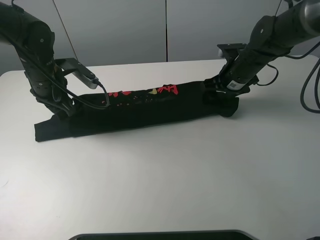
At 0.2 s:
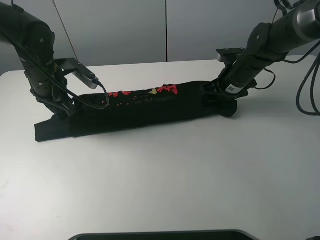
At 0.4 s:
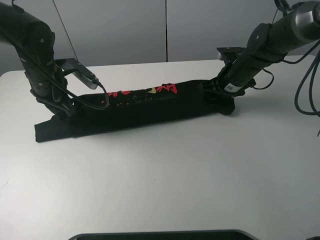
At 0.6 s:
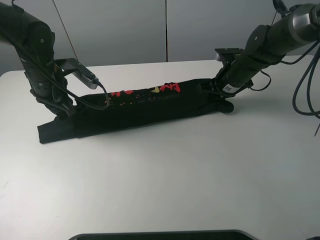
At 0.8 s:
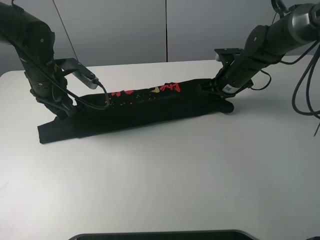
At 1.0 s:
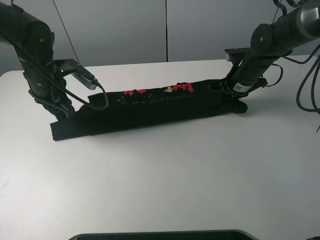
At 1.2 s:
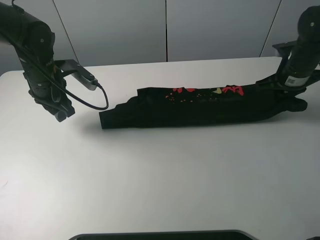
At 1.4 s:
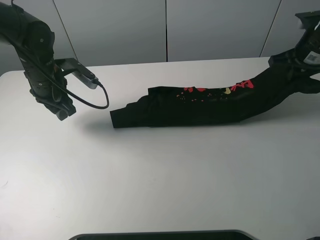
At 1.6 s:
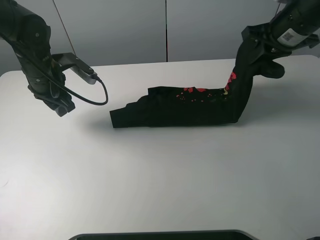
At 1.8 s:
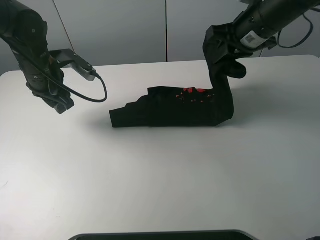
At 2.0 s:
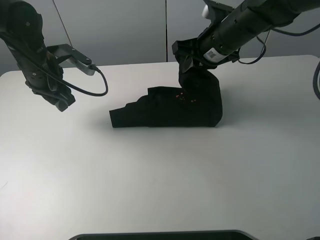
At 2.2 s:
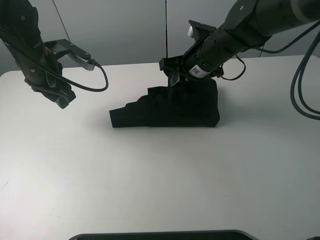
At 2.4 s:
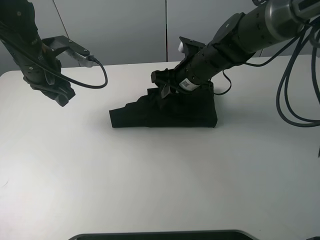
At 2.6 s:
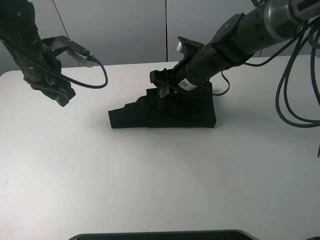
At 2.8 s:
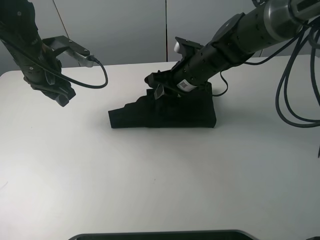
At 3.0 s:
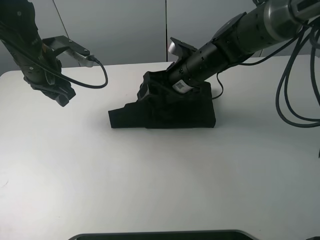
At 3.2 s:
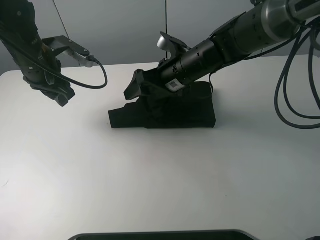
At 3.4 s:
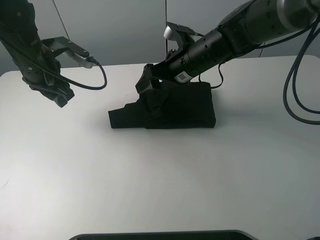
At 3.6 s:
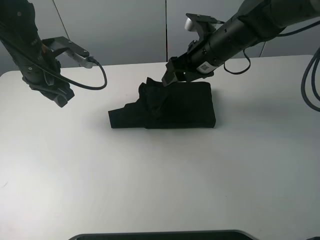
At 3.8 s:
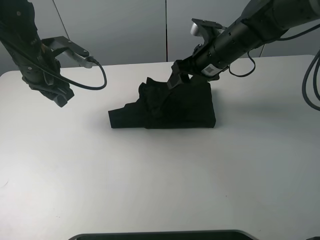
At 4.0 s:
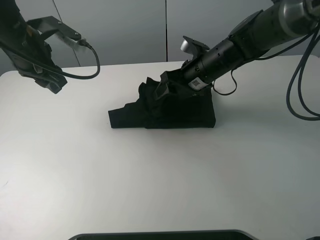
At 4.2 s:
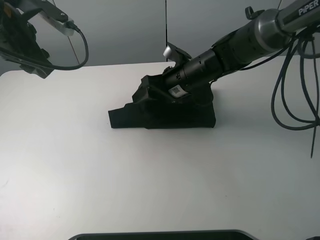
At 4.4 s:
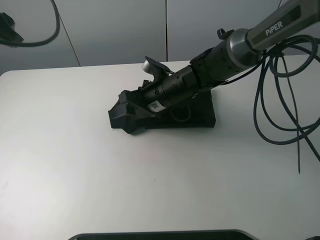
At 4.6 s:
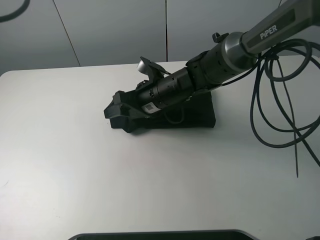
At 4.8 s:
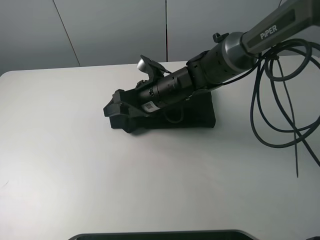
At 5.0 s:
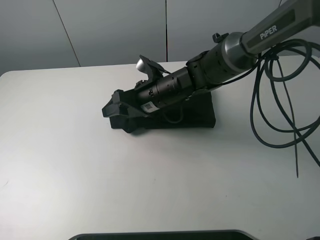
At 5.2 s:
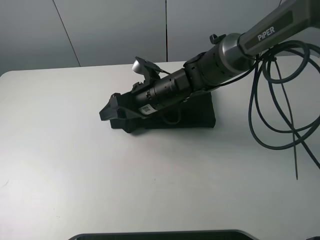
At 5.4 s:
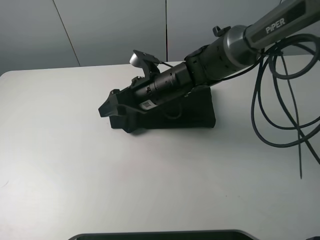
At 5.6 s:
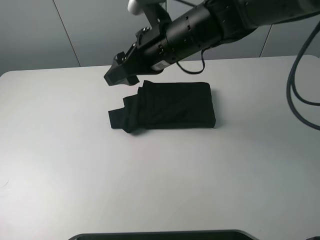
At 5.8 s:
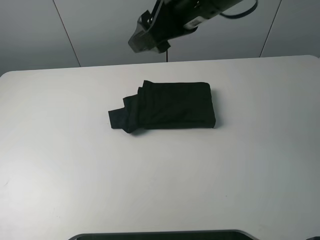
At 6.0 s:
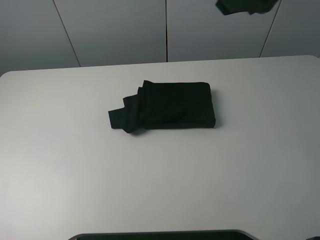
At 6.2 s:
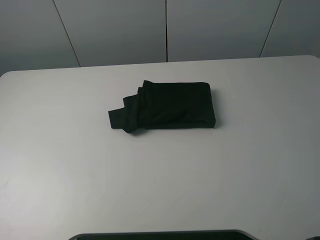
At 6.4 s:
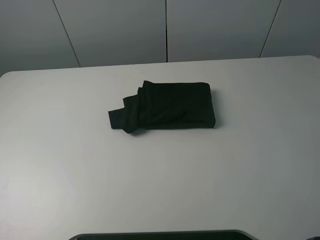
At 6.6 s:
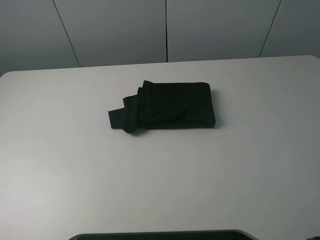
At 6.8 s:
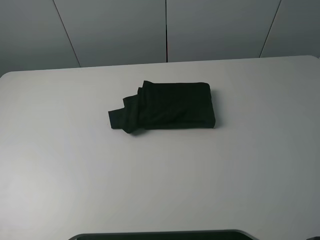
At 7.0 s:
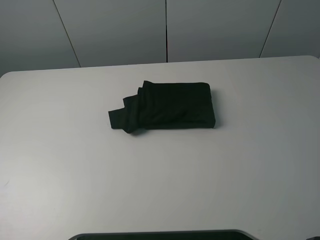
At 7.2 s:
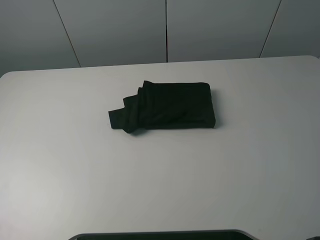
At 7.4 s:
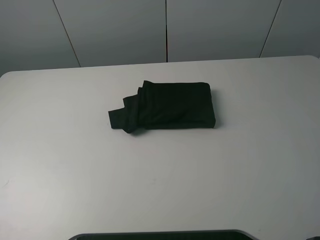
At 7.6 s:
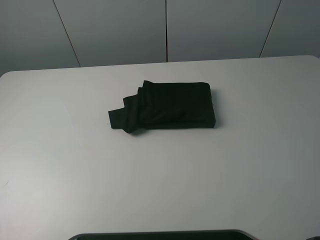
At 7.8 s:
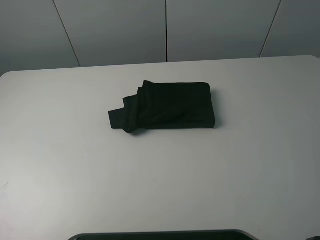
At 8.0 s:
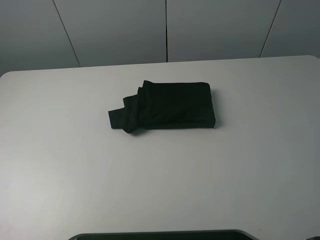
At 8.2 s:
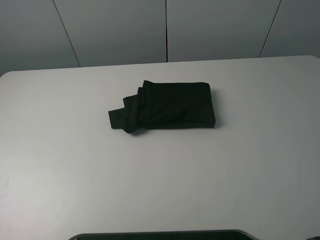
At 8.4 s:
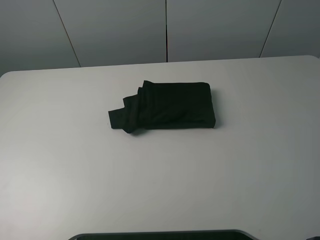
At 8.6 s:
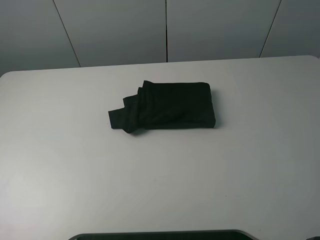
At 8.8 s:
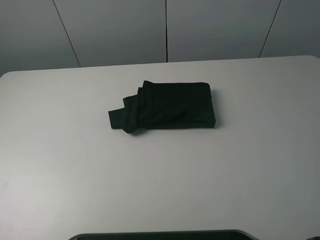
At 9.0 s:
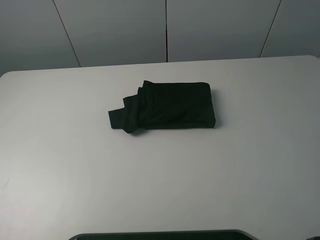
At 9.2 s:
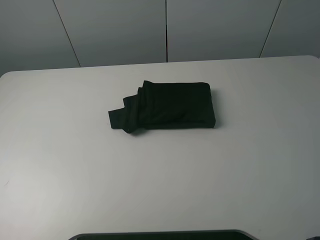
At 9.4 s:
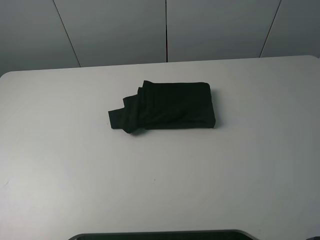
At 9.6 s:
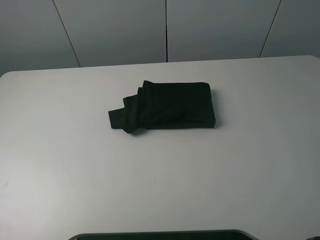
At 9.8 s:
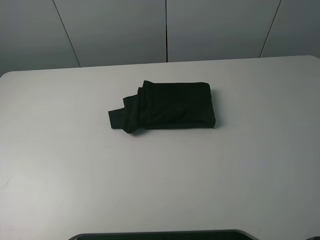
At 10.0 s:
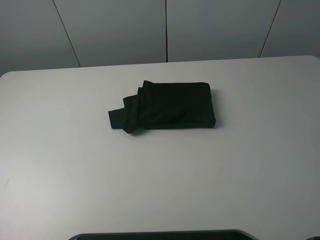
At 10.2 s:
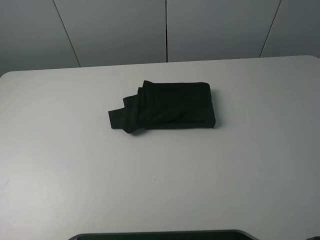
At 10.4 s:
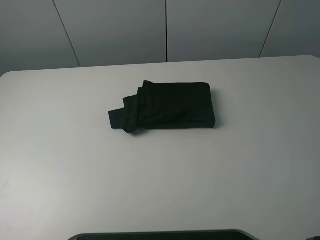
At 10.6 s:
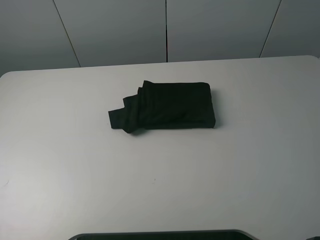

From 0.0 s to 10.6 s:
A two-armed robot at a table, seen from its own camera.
Task of the whole recording: fold the clothes on the table.
Step, from 0.0 s to 0.8 s: Grasp the black T-shirt with the right gripper.
Step, from 1.0 s to 3.2 s: Fold the black T-shirt from right to left with right gripper.
From 0.0 s to 1.6 s: The right gripper travels upward by about 15 cm, and closes up.
From 1.6 s to 3.0 s: The right gripper heads to the left and downward, covering about 20 cm, and opens.
From 3.0 s to 4.6 s: The right gripper travels to the left by about 5 cm, while the left gripper moves upward and backward, about 20 cm.
From 4.6 s to 6.0 s: The left gripper travels backward and to the left by some 30 cm; the right gripper goes some 35 cm upward and to the right.
From 6.0 s to 7.6 s: The right gripper heads backward, to the right and downward, covering about 25 cm.
